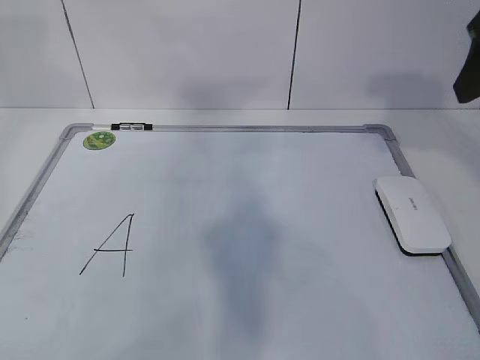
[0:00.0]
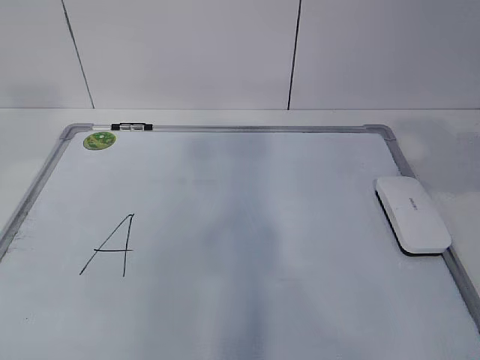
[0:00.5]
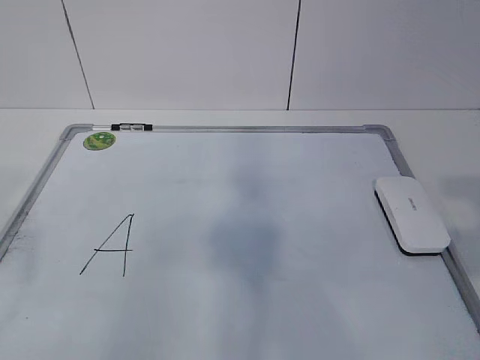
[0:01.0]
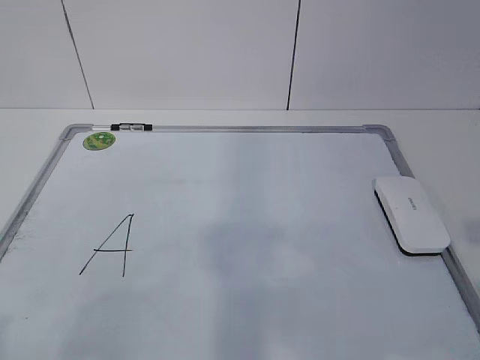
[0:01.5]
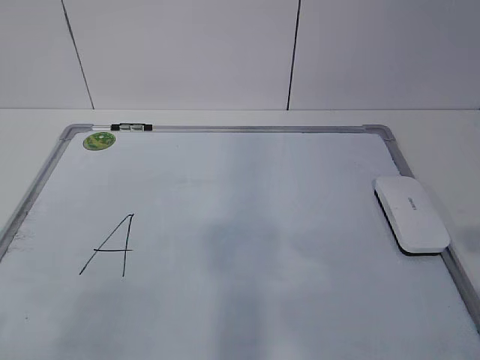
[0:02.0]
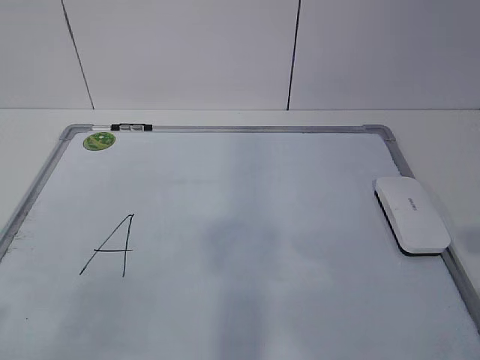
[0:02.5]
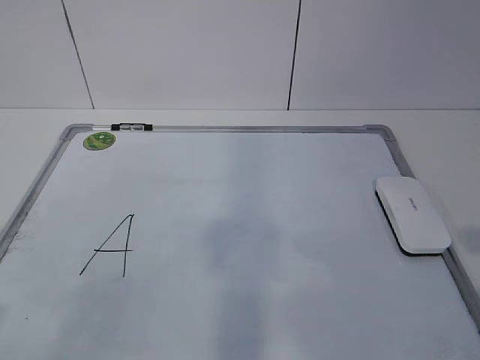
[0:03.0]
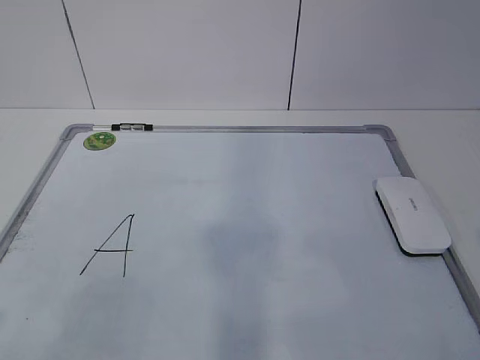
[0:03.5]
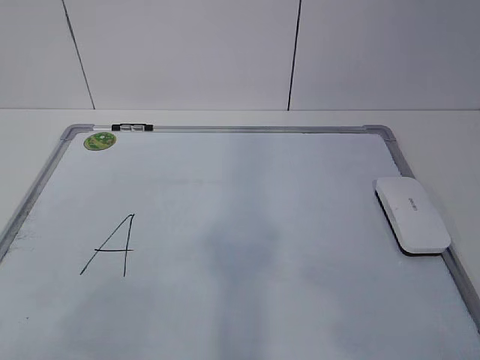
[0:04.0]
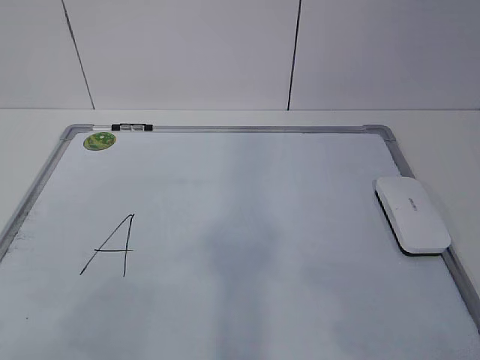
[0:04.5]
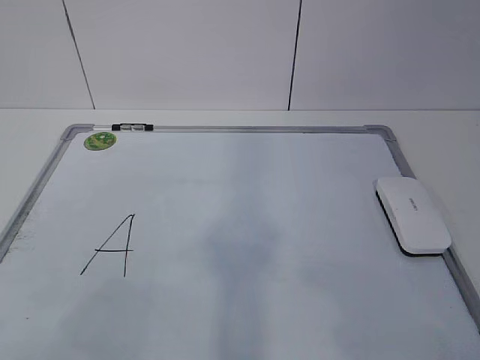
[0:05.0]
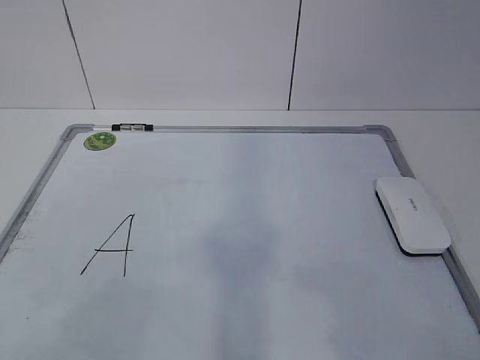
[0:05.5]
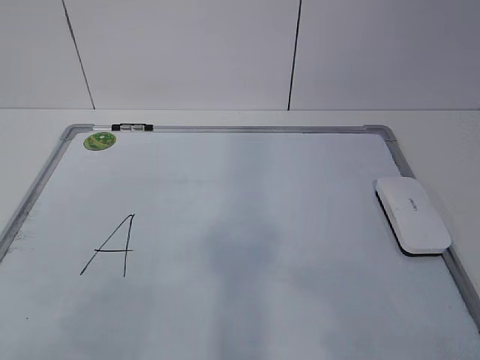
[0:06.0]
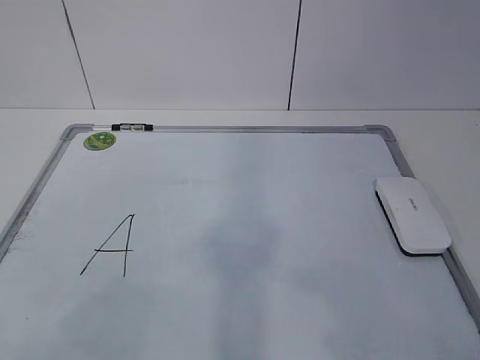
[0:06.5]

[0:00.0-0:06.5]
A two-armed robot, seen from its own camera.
Task of the whole recording: pick up the eraser on the blackboard and erase the letter "a".
0:00.0 to 0:02.0: The two grippers go approximately 30 cm backward and downward.

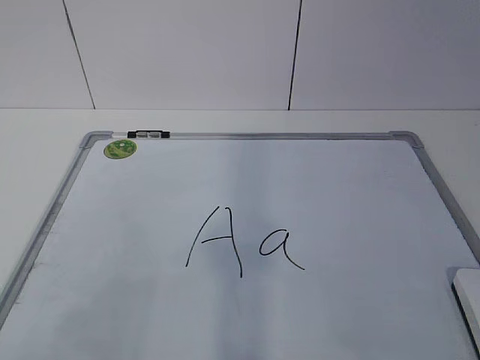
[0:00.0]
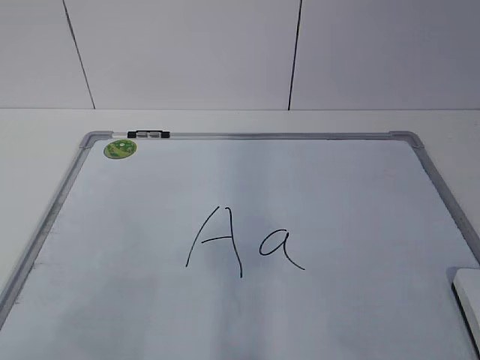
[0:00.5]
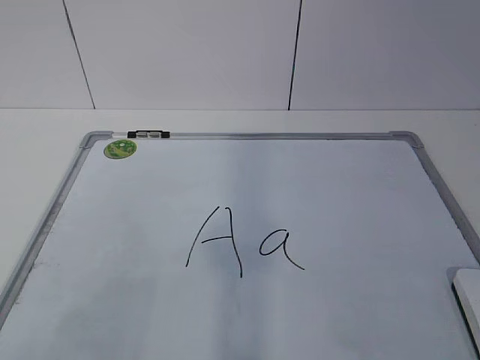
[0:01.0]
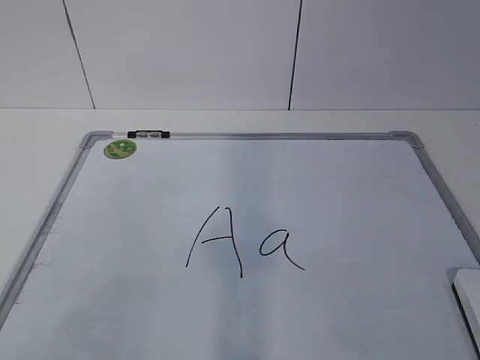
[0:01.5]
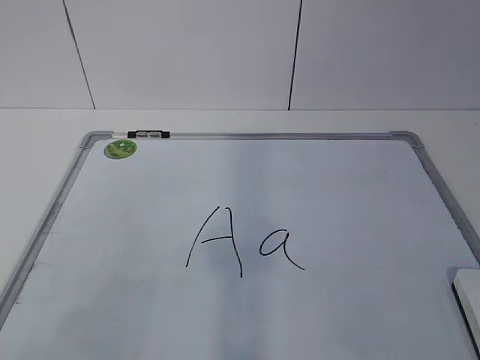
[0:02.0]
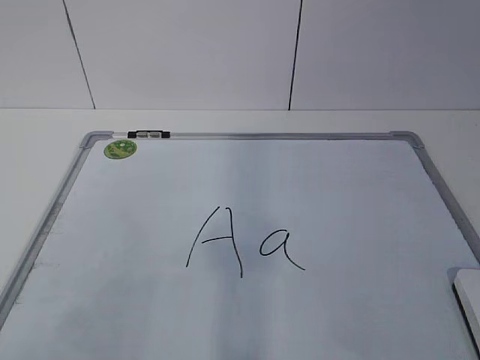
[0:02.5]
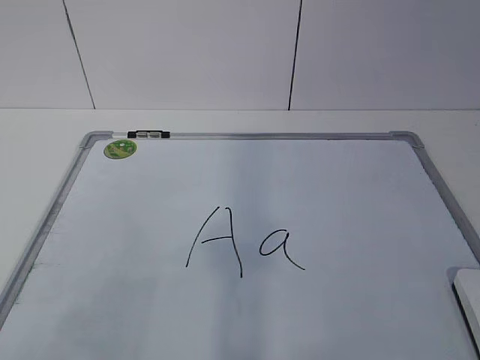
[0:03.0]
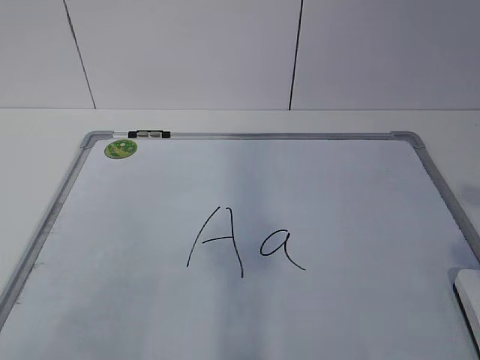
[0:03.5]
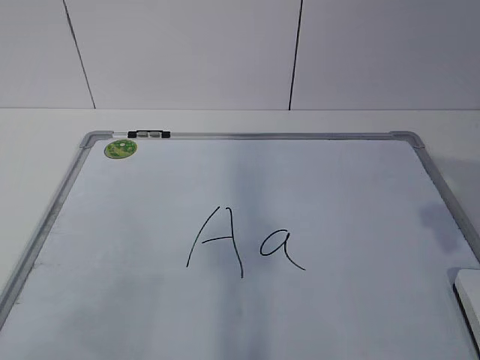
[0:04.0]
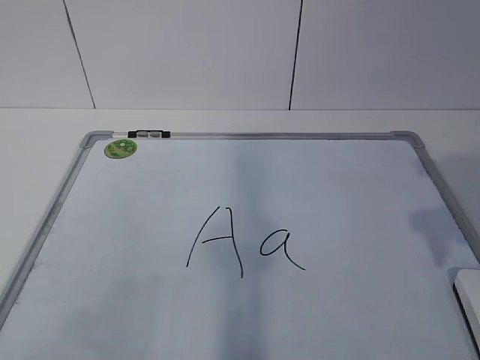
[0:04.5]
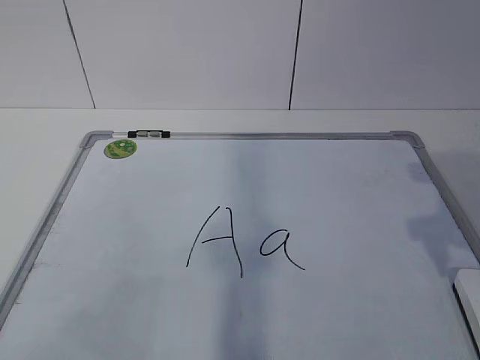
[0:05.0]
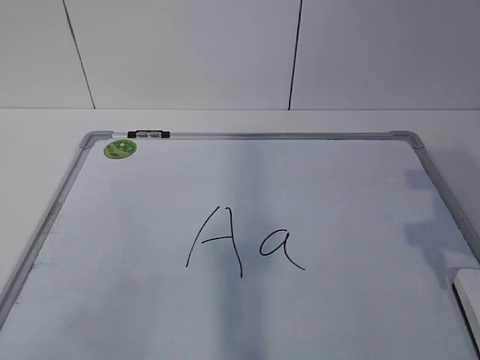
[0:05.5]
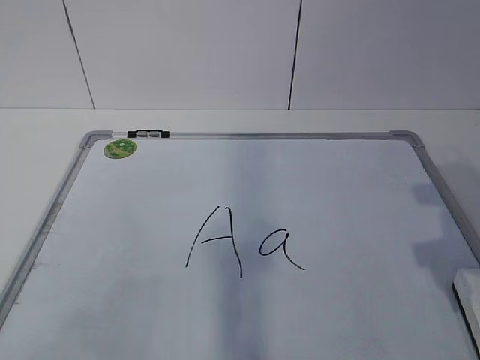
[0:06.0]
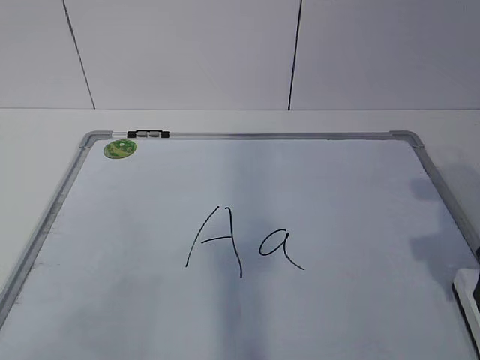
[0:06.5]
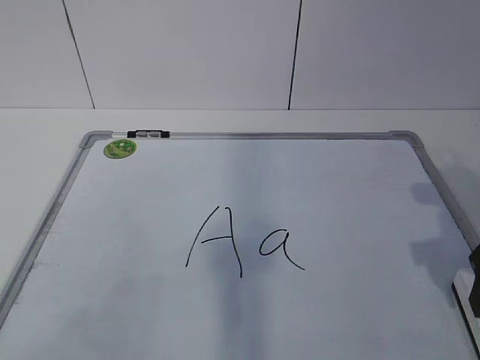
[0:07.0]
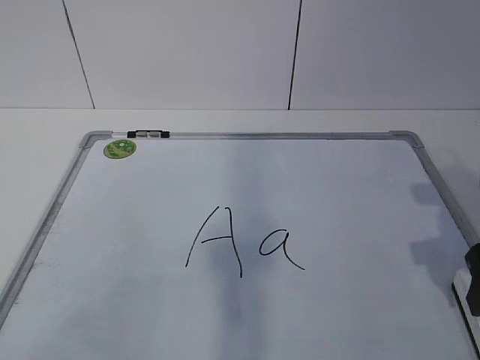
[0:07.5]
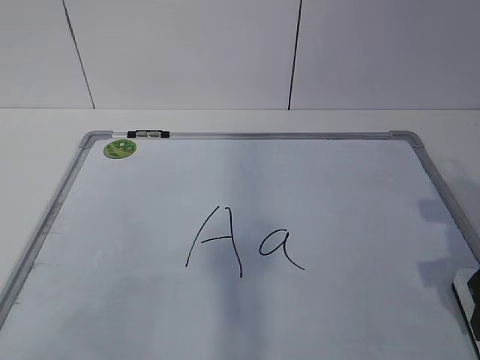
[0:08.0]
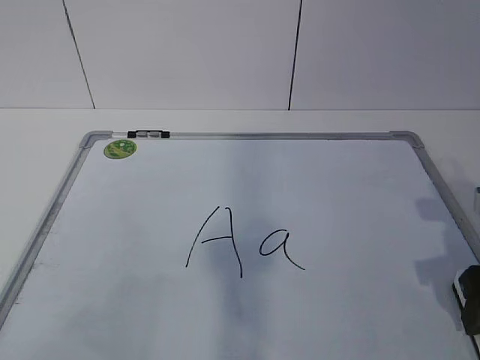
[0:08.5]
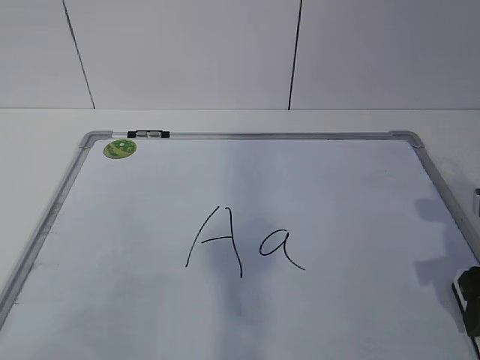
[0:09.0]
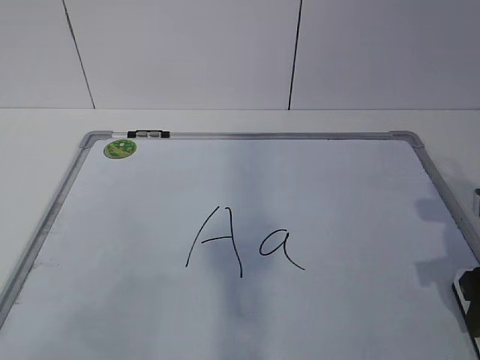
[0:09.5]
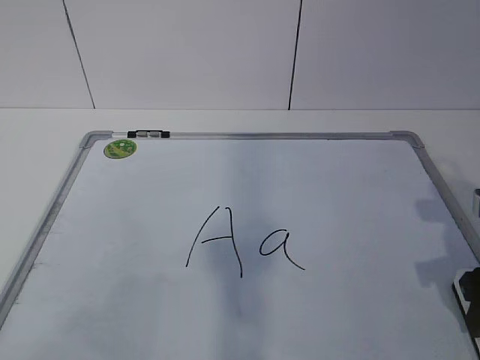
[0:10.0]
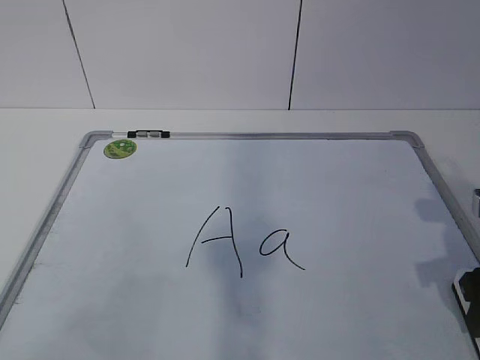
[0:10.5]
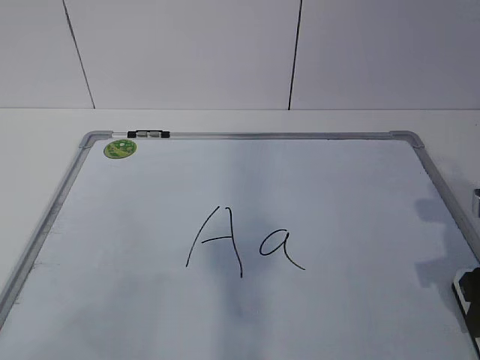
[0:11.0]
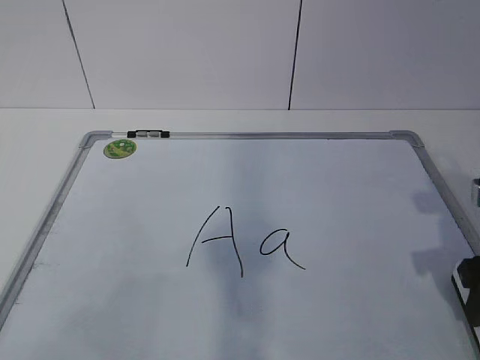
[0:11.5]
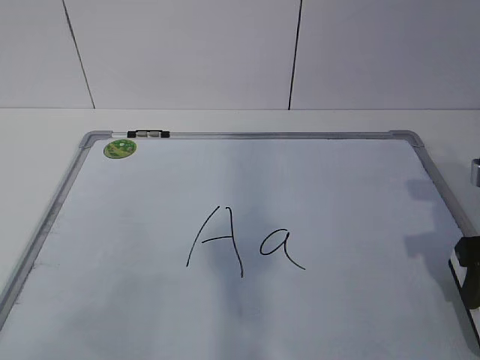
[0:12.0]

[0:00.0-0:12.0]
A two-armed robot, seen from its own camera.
Task of the whole recording: pick up the eraser on the blackboard and erase the letter "a".
0:04.0 to 0:06.0: The right gripper goes roughly 10 cm downward and forward.
0:10.0 to 0:12.0: There are only small adjustments of the grippers.

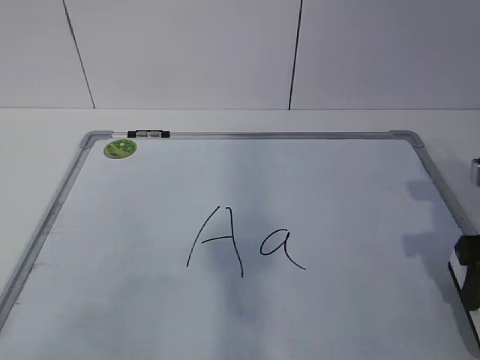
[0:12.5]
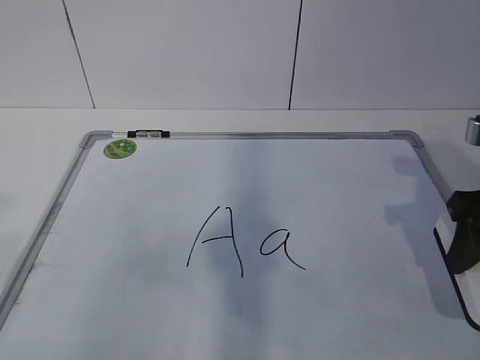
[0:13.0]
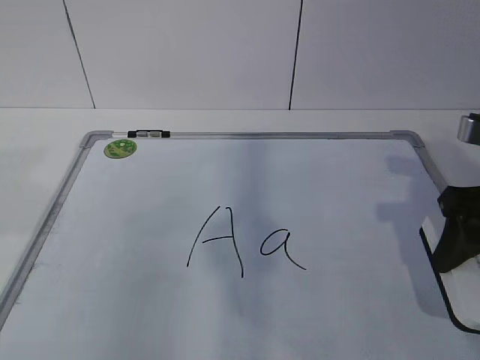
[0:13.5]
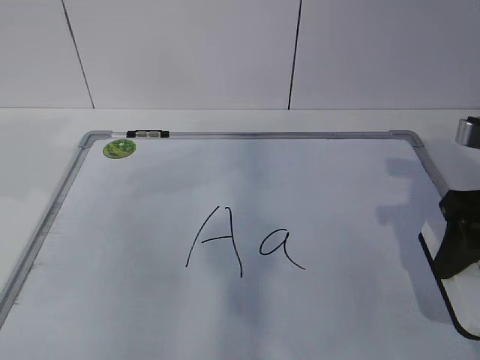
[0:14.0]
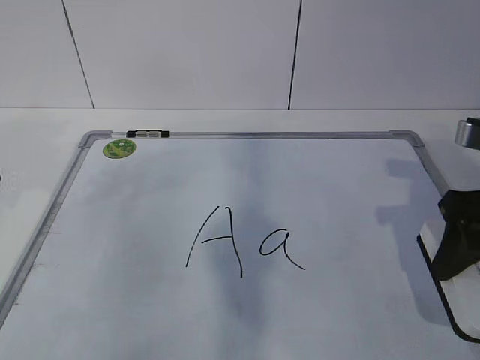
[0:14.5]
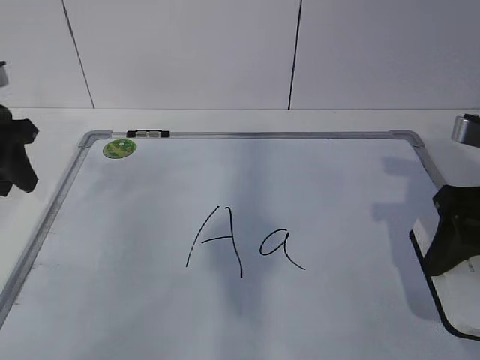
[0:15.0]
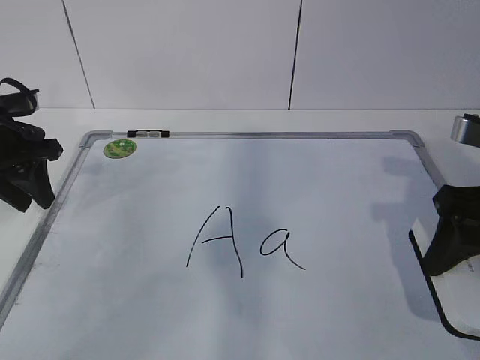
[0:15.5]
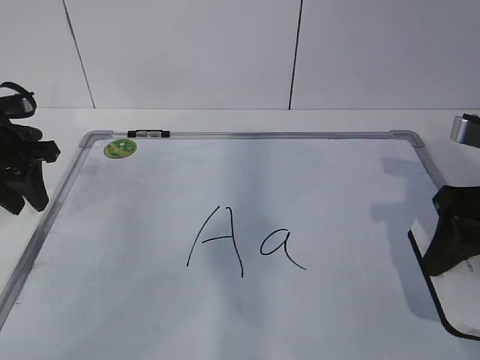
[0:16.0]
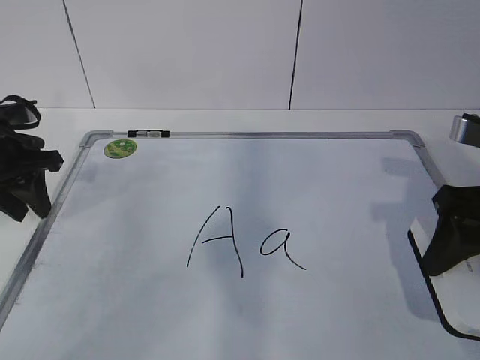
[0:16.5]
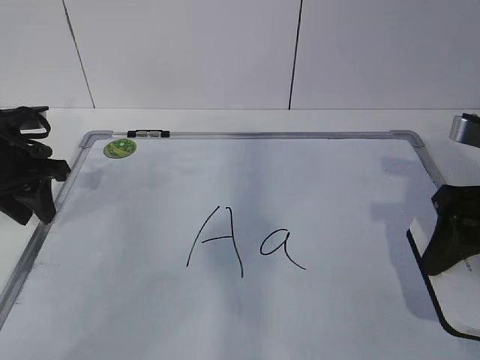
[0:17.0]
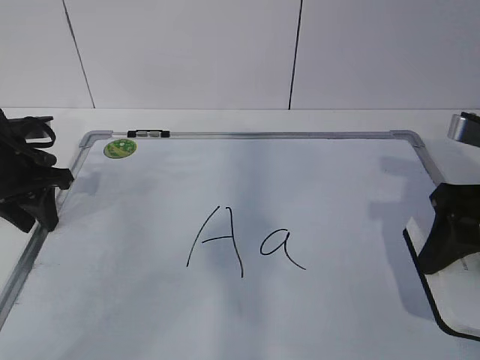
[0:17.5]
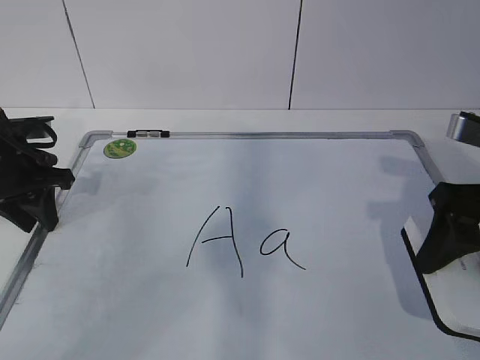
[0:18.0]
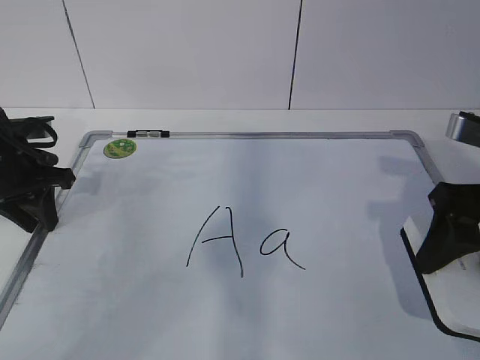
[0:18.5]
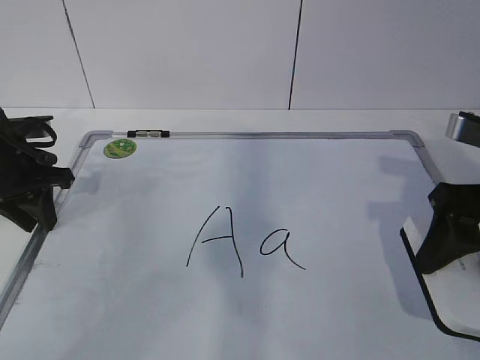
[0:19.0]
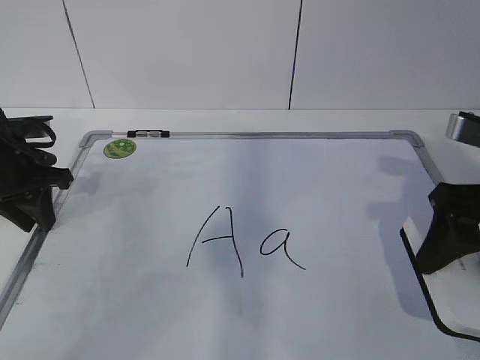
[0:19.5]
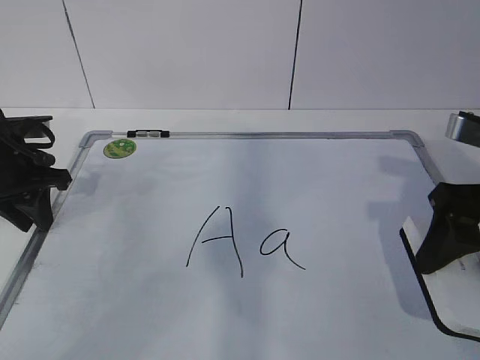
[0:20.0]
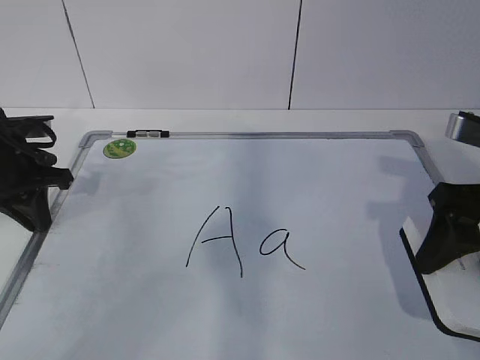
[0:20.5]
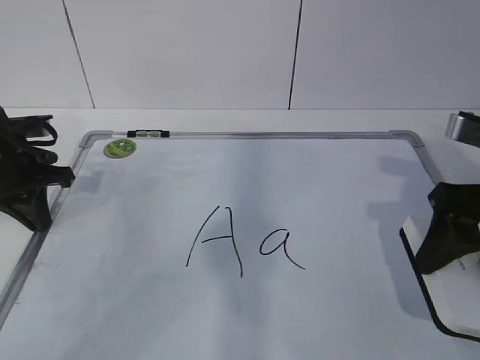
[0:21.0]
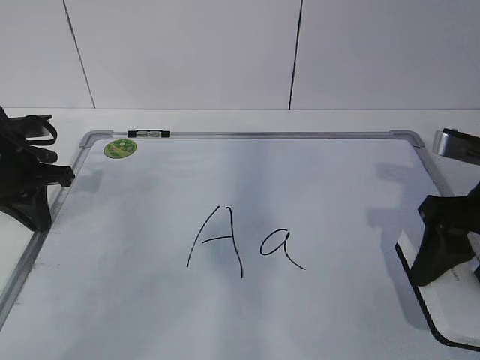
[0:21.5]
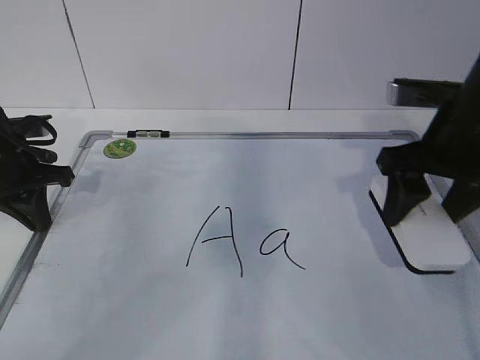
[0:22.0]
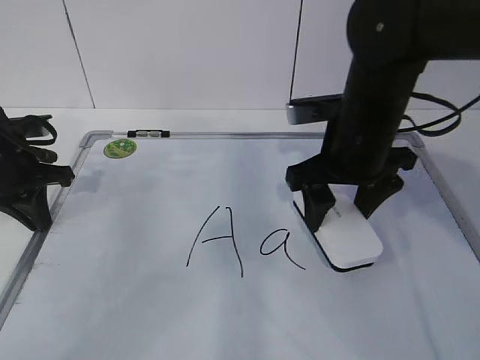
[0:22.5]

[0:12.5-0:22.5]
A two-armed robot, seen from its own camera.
Task of the whole recording: pick up the eraser on the blackboard and erase the letter "a".
Step, 0:12.5 to 0:17.0: Hold the drawing board steady with your left hand.
0:14.5 to 0:16.5: The left gripper travels downward and forward by approximately 10 cm.
0:16.5 to 0:18.5: There are only small adjustments of the grippers.
0:18.5 to 0:20.5: The two grippers keep their place.
0:20.5 to 0:22.5: The right gripper goes approximately 15 cm to the left and forward.
